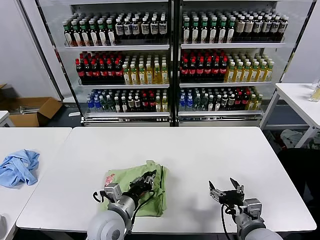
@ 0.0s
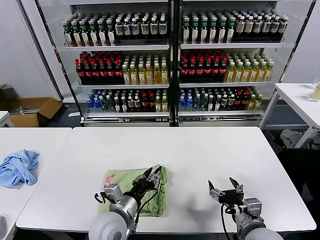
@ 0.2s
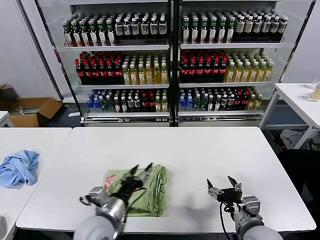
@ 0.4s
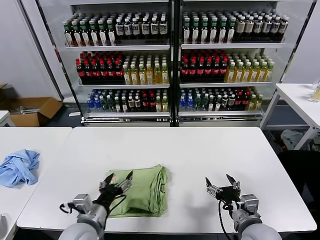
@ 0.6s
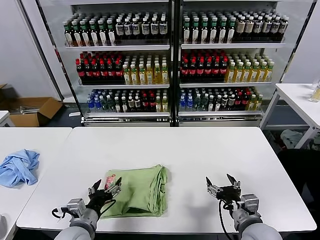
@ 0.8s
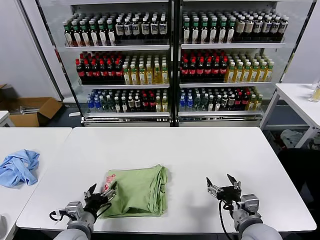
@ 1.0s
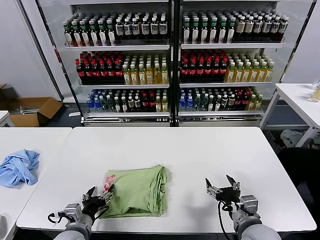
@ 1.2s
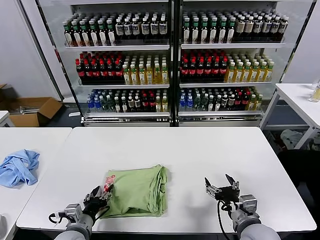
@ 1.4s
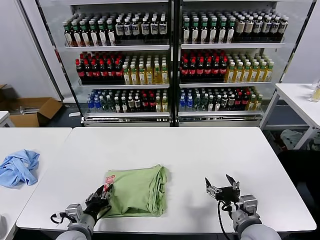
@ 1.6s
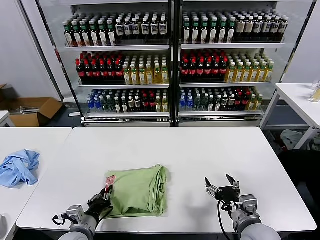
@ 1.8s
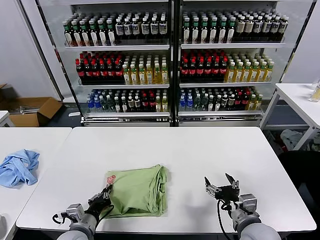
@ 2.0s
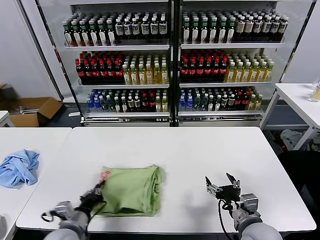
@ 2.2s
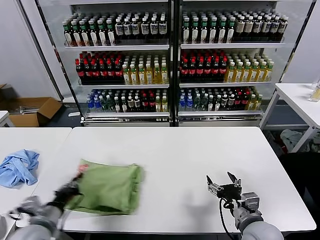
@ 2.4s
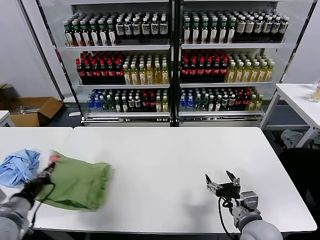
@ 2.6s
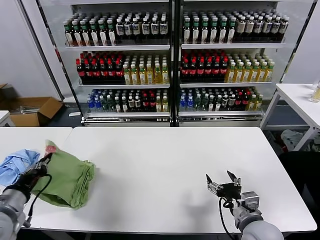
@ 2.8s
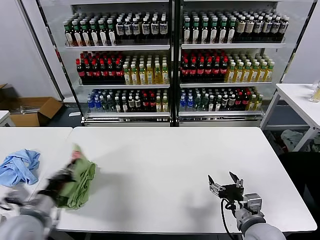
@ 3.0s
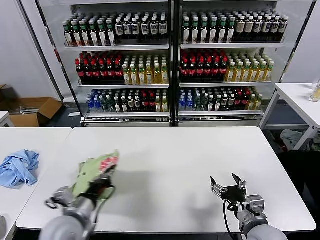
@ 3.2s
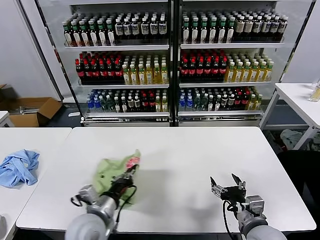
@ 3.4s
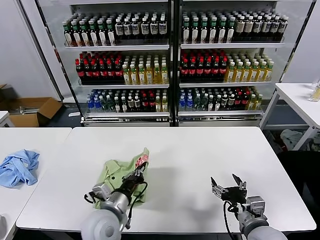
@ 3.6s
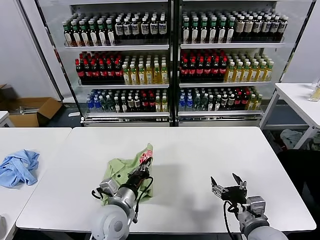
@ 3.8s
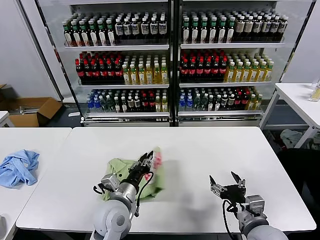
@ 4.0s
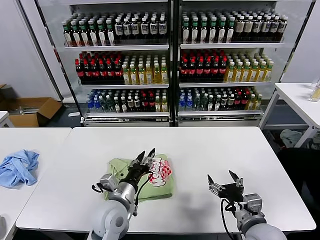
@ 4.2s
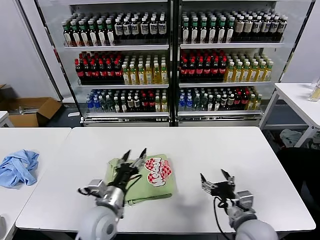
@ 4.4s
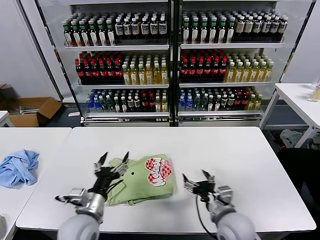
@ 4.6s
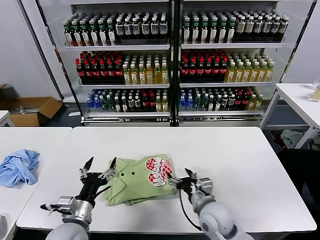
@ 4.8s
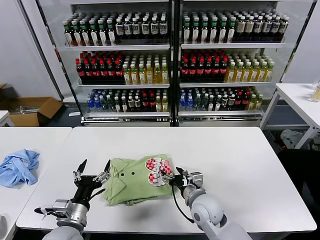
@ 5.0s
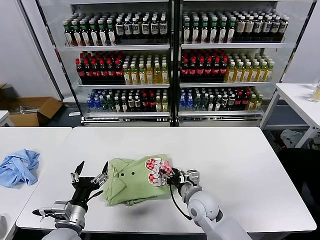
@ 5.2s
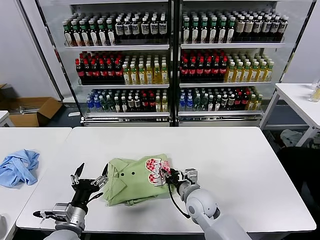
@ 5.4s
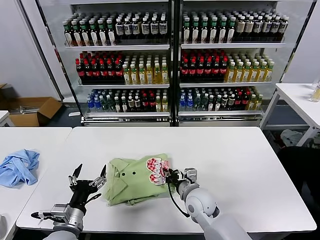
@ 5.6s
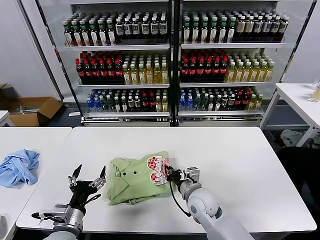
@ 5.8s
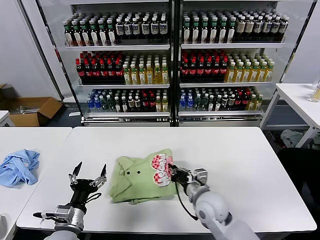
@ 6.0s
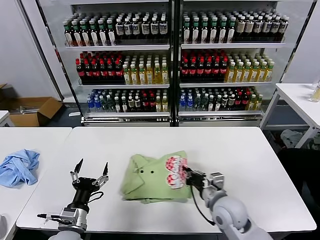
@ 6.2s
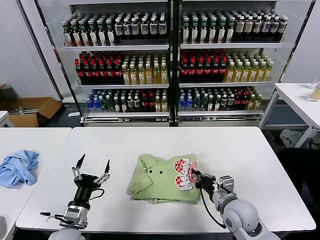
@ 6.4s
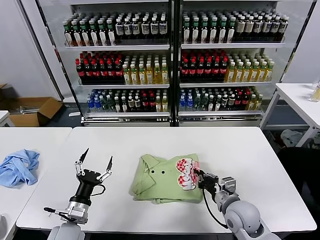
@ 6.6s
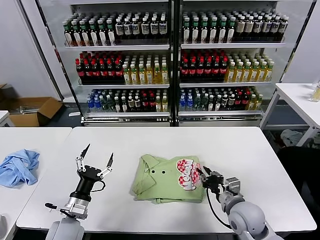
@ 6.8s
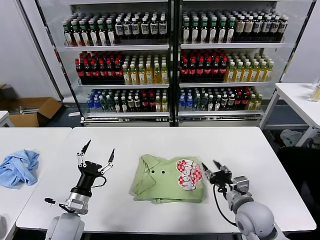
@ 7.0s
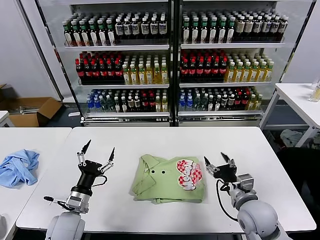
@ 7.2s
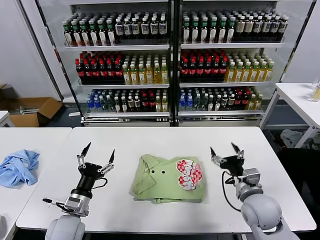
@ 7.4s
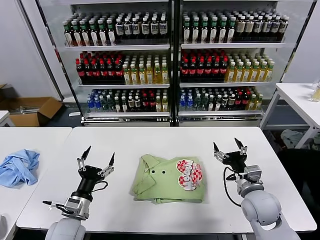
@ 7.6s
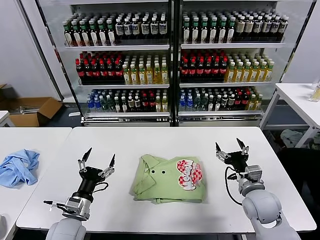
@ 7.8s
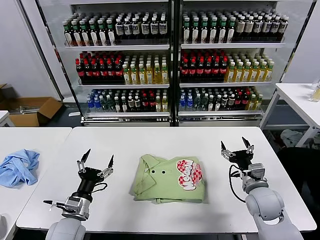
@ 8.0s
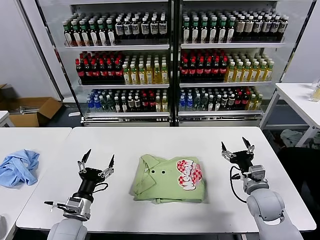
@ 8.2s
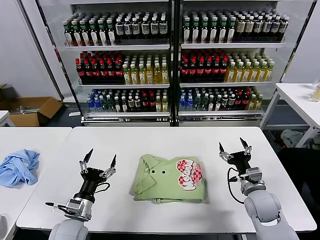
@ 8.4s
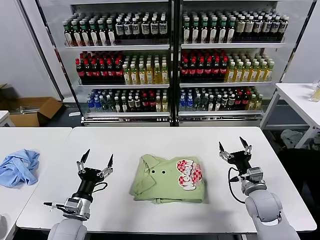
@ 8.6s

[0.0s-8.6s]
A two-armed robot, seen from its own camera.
Task of the whole recording: fold and organize the clothes.
Step, 0.4s to 4.2s: Flip the folded clothes over with left gripper.
Step, 4.4s to 6.8s: Drag the clothes to the center of the table.
0.0s to 1.4s: The left gripper goes roughly 15 cm to the left and downward, and opens.
1.4s to 2.8s: The left gripper goes some 20 cm upward and to the left, and closes.
2.8s to 4.4s: The left gripper travels to the right by roughly 25 cm, and opens its fingers.
4.4s to 5.8s: The left gripper moves to the left and backward, about 10 cm. The right gripper moves forward, to the left and downward, roughly 20 cm, and closes up.
5.8s to 7.2s: The left gripper heads forward, covering about 5 cm. Meanwhile the right gripper goes some 15 cm to the right and backward, and opens up.
7.2s to 8.6s: The right gripper shifts by approximately 10 cm.
